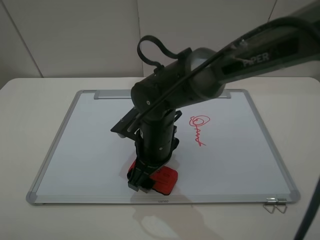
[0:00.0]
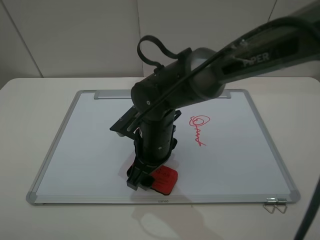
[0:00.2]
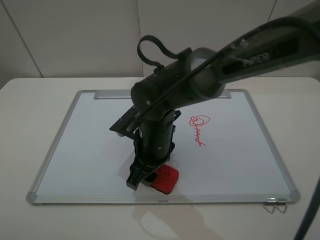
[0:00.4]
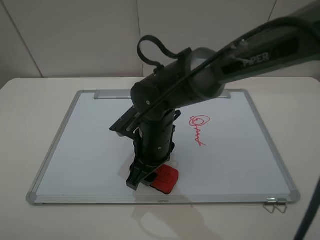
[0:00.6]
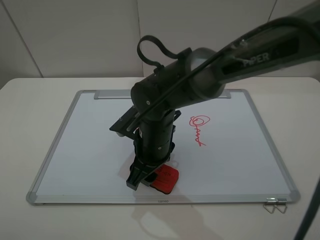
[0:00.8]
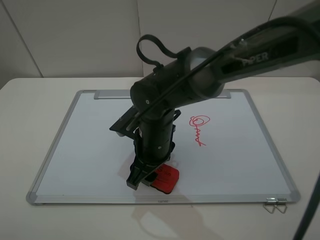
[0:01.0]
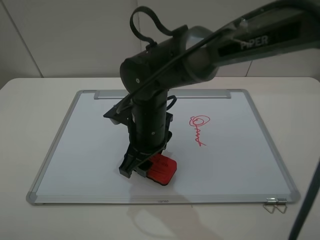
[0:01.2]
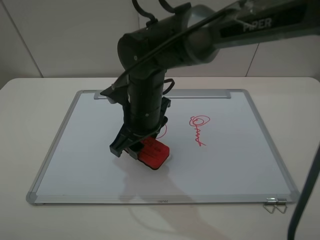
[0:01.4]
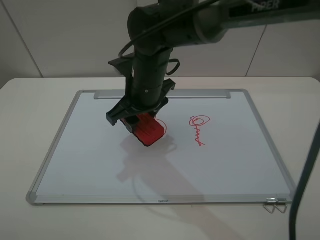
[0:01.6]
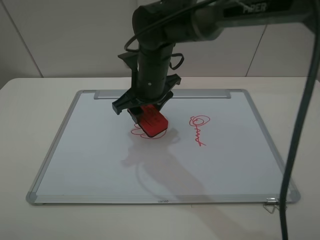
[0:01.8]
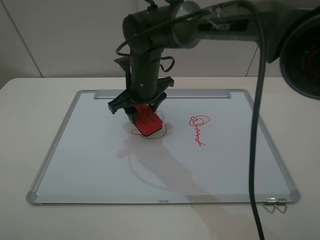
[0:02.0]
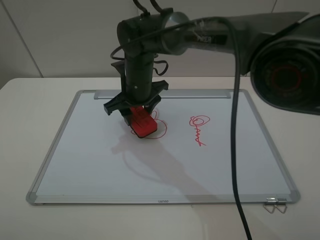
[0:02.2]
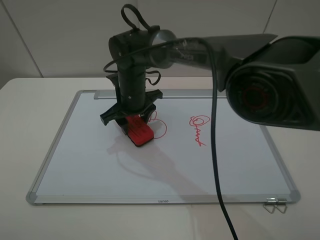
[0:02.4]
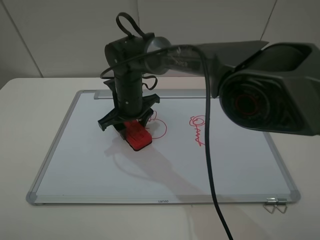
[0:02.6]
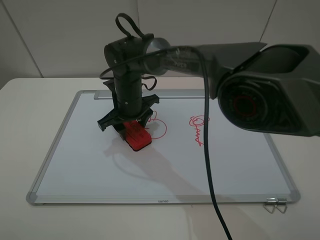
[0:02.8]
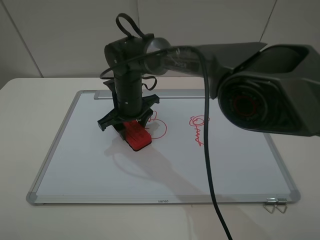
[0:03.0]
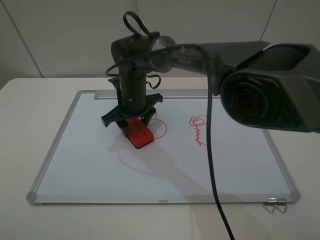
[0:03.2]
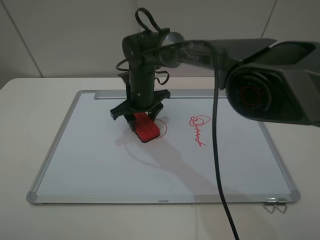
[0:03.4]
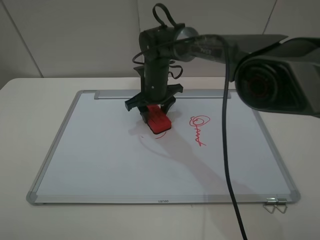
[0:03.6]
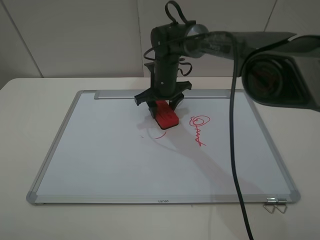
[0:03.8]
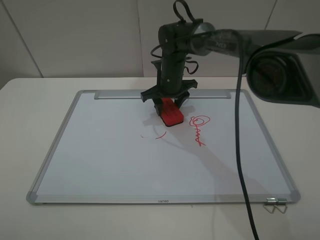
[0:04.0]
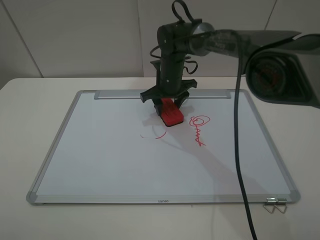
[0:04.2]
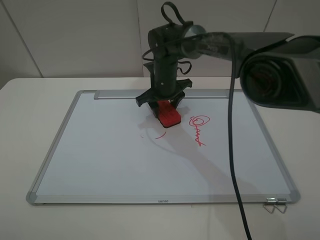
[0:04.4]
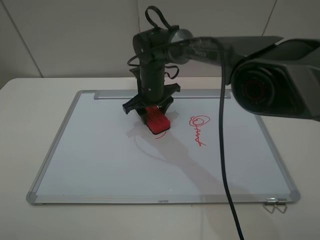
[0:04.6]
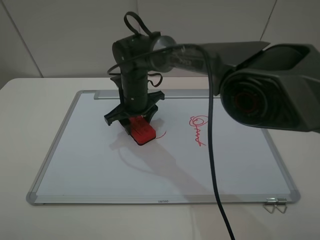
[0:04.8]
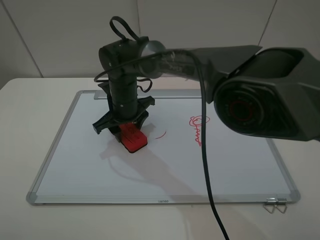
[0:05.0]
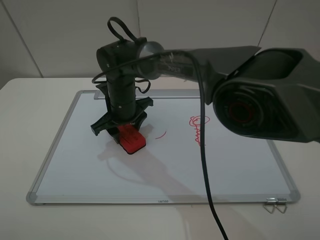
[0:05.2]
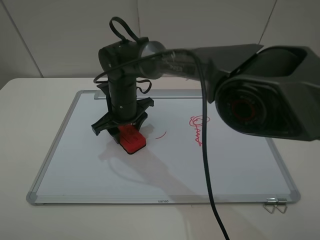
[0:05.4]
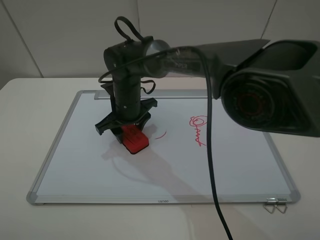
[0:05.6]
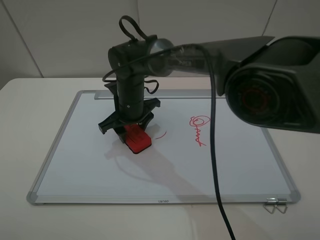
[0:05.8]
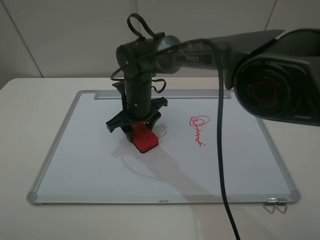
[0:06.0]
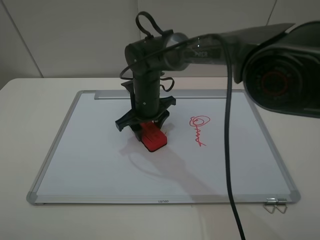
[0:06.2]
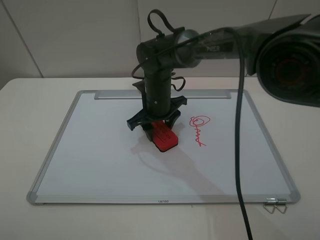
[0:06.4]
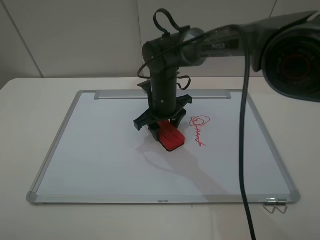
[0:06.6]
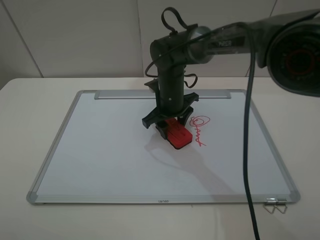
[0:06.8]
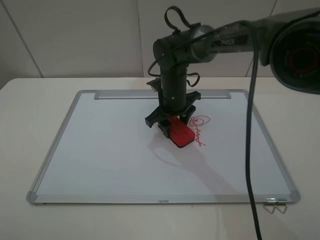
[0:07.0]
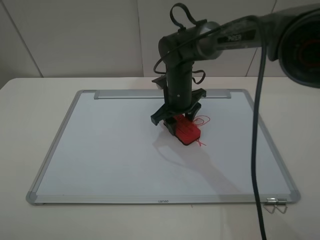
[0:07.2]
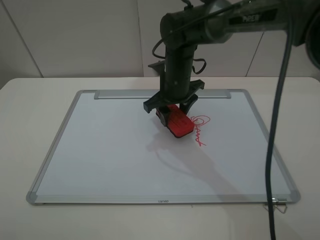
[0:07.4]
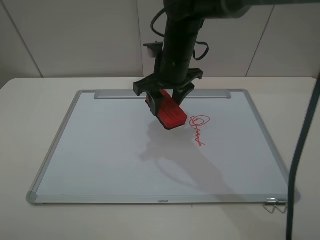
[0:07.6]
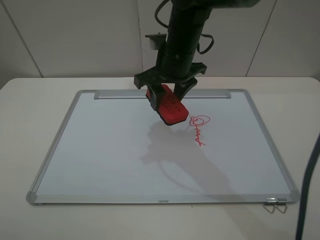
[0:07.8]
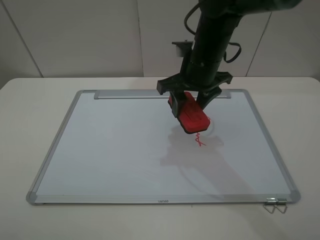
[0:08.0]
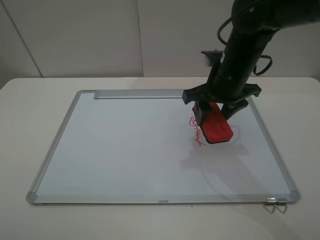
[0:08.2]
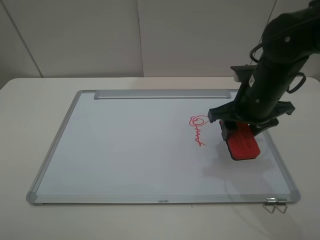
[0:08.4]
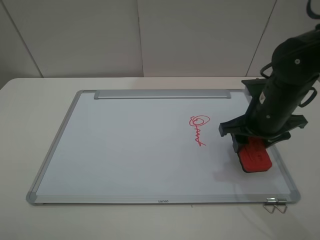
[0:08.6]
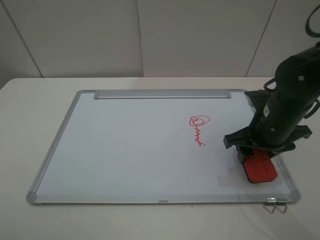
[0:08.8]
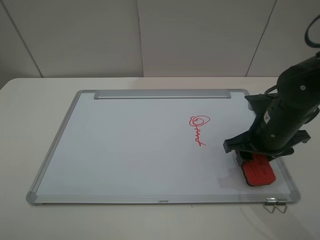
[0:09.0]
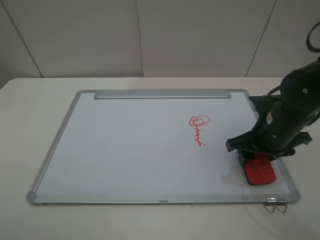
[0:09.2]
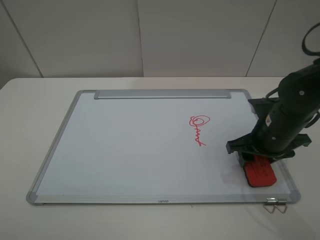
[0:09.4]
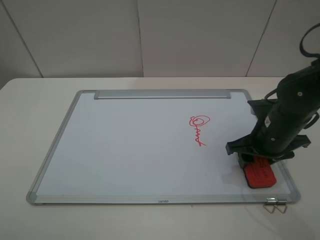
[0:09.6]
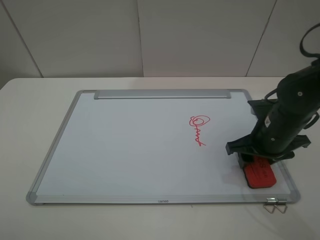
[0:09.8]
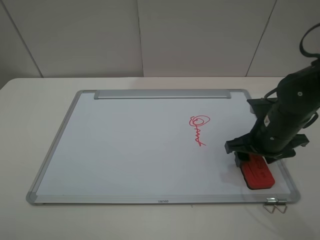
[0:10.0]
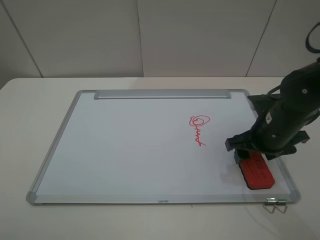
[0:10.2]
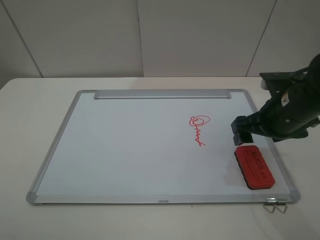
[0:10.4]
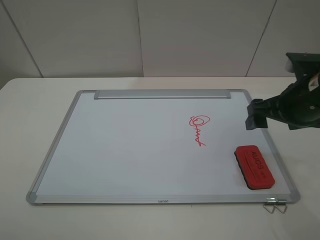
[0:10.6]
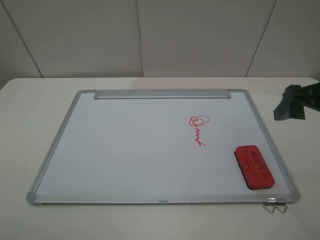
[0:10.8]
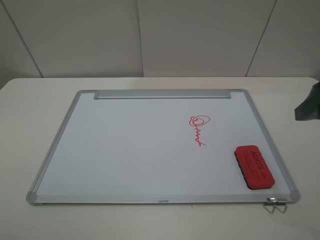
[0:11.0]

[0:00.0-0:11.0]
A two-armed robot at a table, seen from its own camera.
Step, 0:00.6 to 0:07.4: Grasp the eraser and wipe the blackboard with the right gripper.
Step, 0:07.6 to 0:10.2: Place the eraser with the right gripper.
0:00.0 to 0:01.6: The right gripper is displaced upward and forward by approximately 10 cm, and closes up.
0:01.6 to 0:03.2: The right gripper travels downward and forward by some 10 cm.
0:03.2 to 0:04.8: The right gripper goes to the right and returns, some 10 cm each way.
0:04.8 to 0:06.2: There are only small adjustments of the grippers.
0:06.2 to 0:07.8: The right gripper heads upward and to the right, covering approximately 15 cm.
0:07.8 to 0:09.4: The right gripper moves to the right, backward and downward, about 25 cm.
0:09.4 to 0:11.0: The right gripper shifts about 20 cm upward, backward and to the right, and opens its fingers.

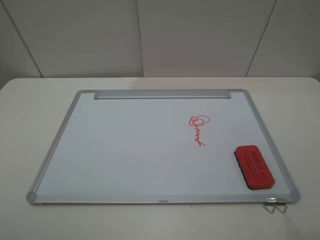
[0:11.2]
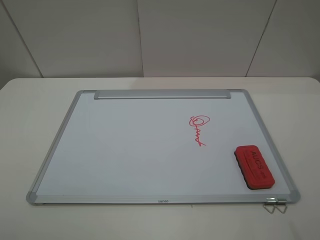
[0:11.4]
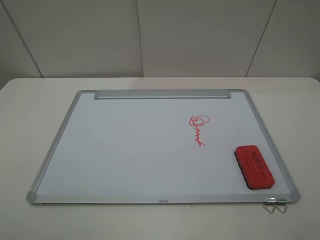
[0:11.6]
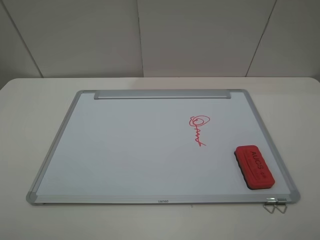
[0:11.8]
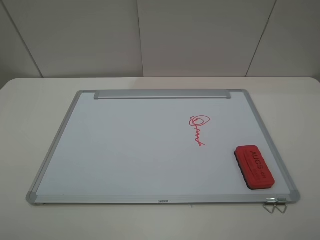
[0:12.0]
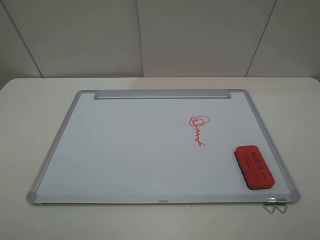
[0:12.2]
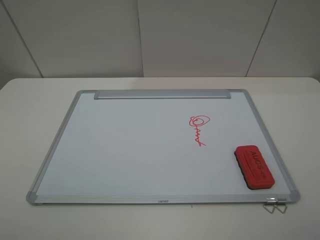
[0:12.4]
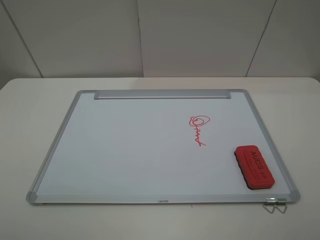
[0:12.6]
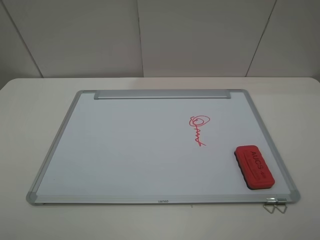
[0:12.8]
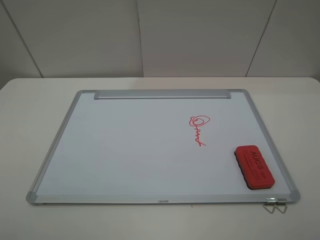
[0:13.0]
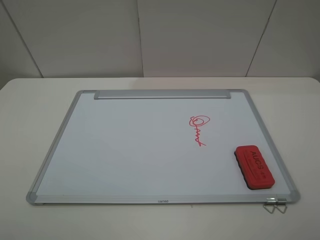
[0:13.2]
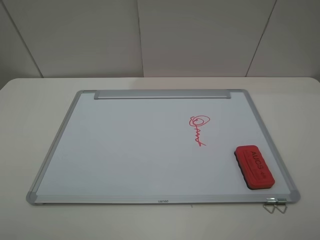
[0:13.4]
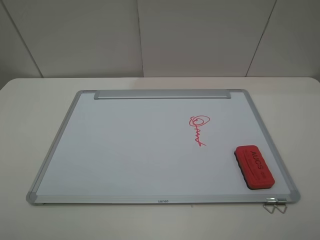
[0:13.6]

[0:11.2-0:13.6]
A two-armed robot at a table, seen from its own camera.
0:12.4 to 0:13.6: Neither gripper changes place.
